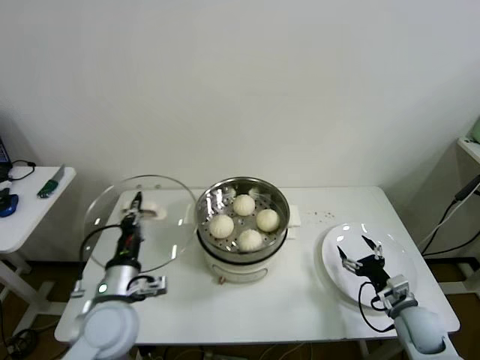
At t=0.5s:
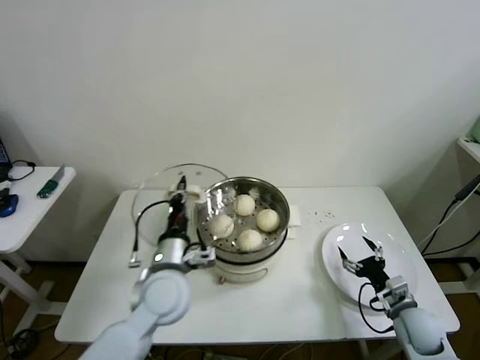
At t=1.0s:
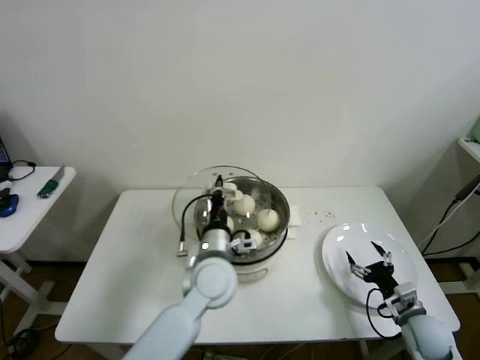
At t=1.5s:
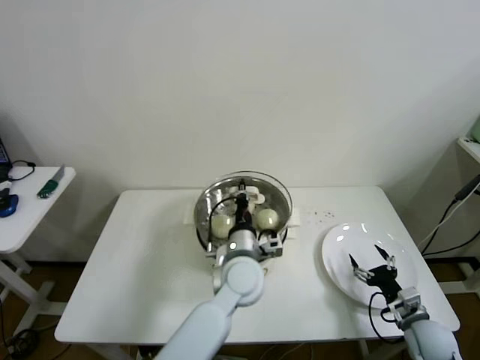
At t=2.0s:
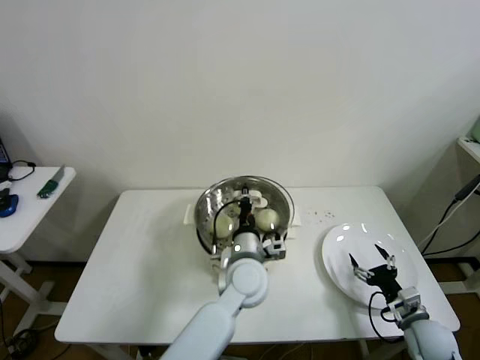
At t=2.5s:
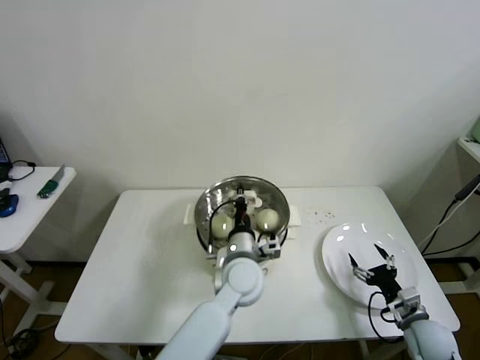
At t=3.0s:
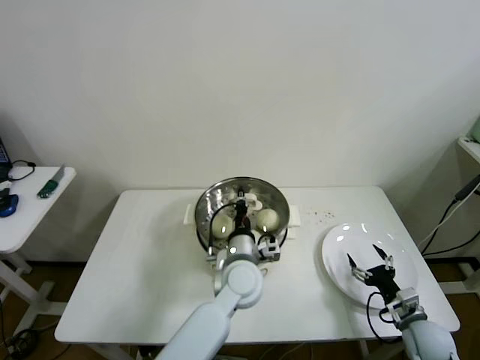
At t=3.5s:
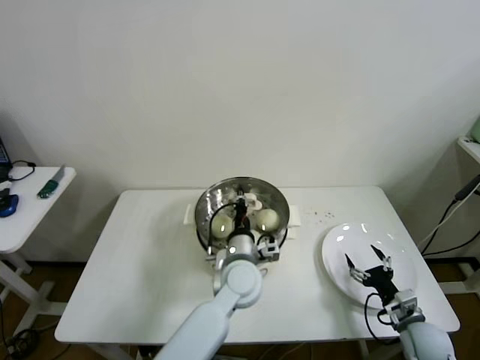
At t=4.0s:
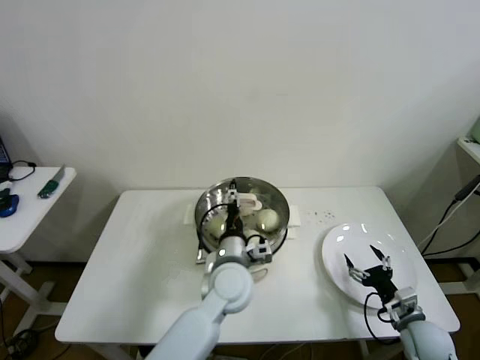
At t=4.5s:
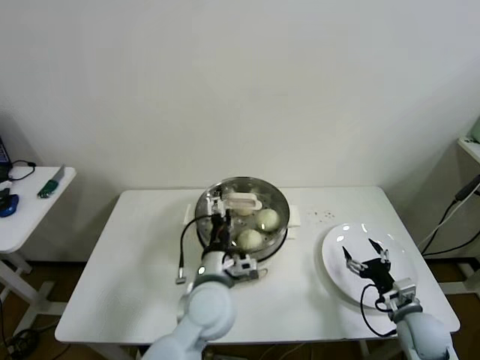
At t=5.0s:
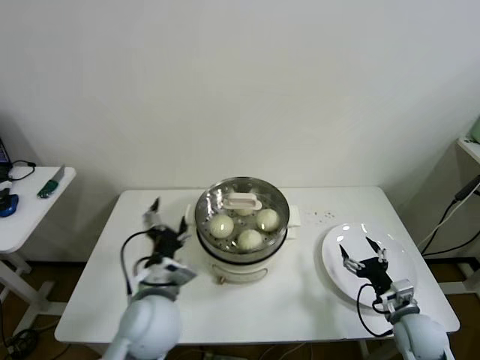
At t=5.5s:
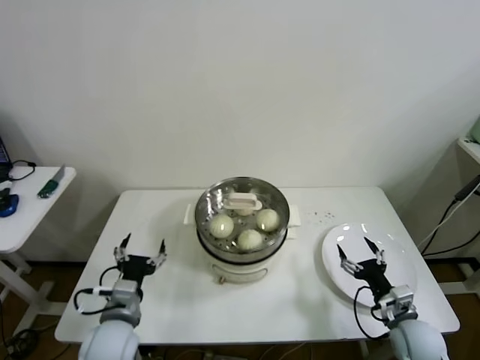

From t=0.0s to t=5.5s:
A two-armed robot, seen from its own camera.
Step, from t=0.0s to t=4.0s: Place the pot lid on the steamer with left gripper.
From t=0.0s to t=2.0s: The left gripper is displaced to the right by some 25 cm.
From t=2.0s to t=3.5s: The grippers move only a little.
From t=3.5s to t=5.5s: The left gripper travels to the left and backward by roughly 25 cm, and opens its fingers.

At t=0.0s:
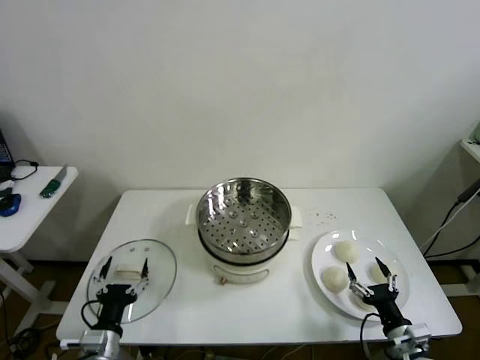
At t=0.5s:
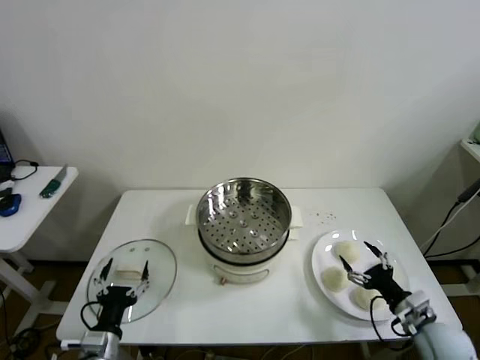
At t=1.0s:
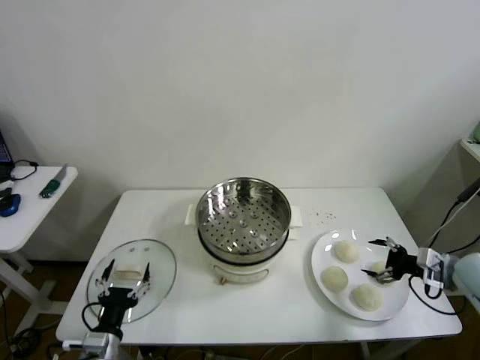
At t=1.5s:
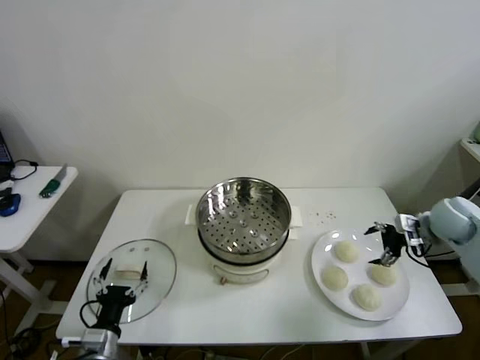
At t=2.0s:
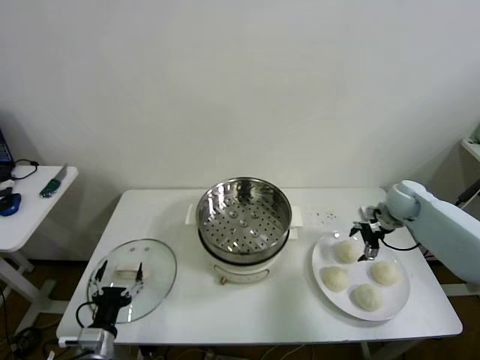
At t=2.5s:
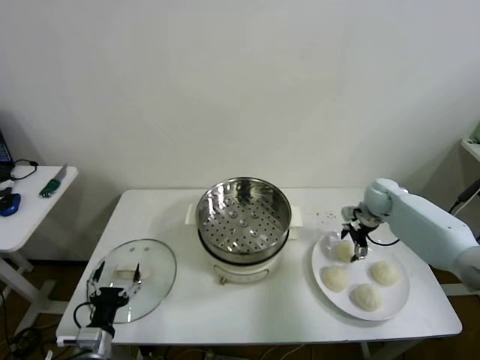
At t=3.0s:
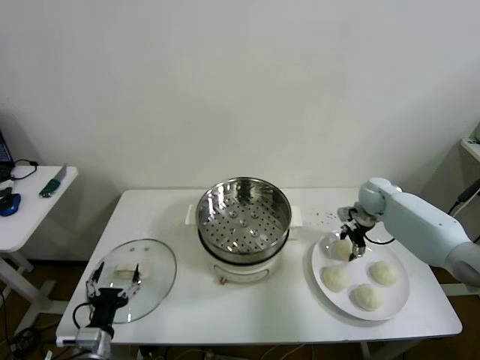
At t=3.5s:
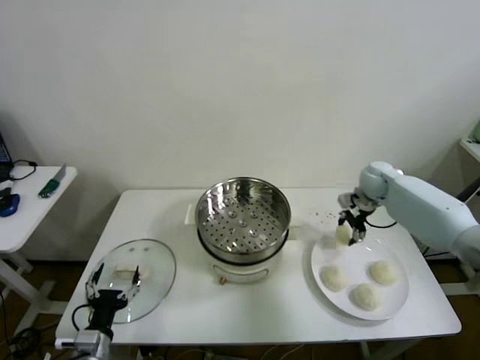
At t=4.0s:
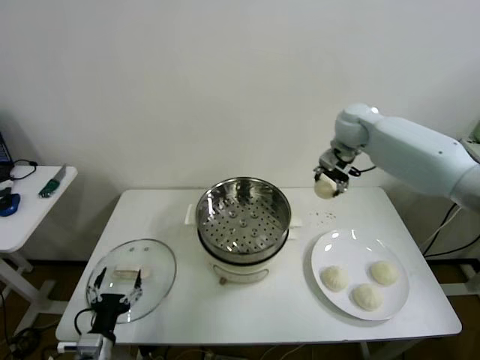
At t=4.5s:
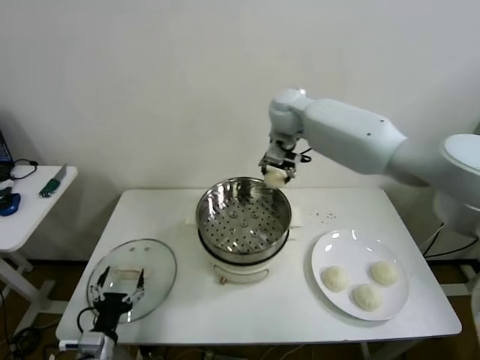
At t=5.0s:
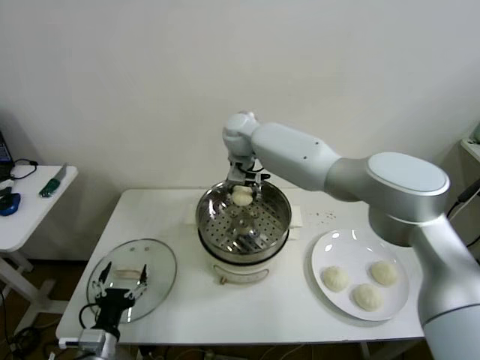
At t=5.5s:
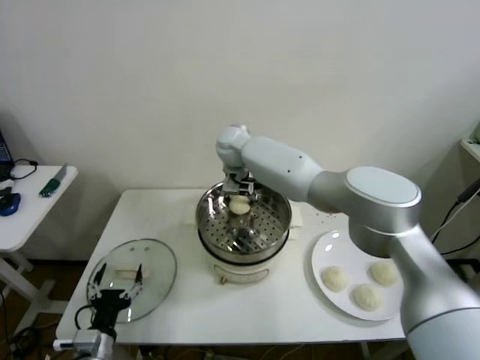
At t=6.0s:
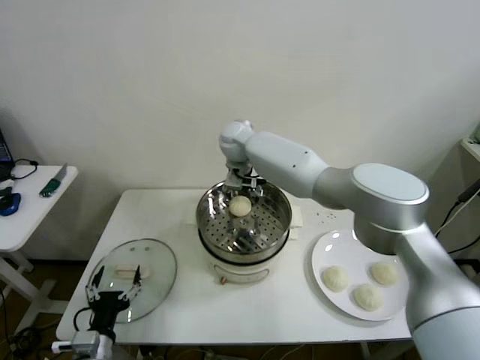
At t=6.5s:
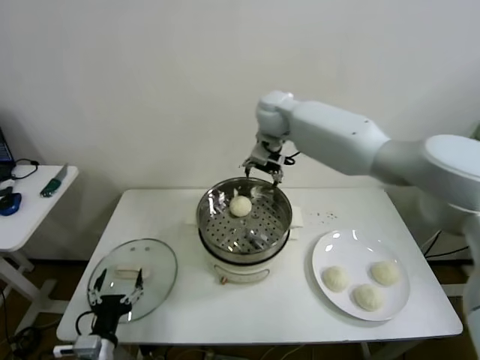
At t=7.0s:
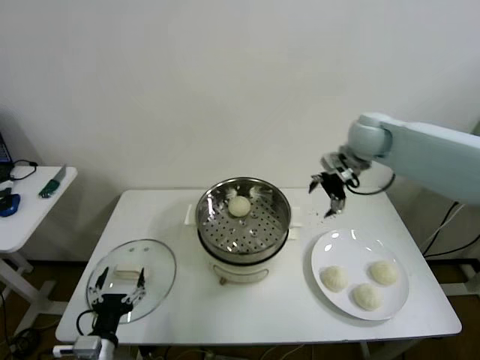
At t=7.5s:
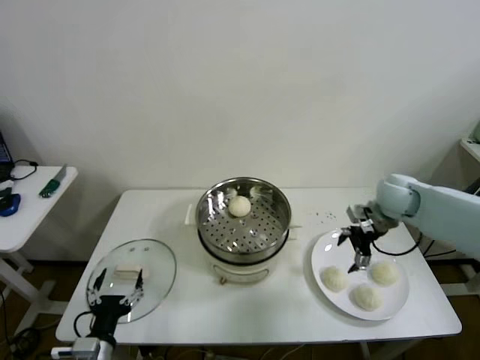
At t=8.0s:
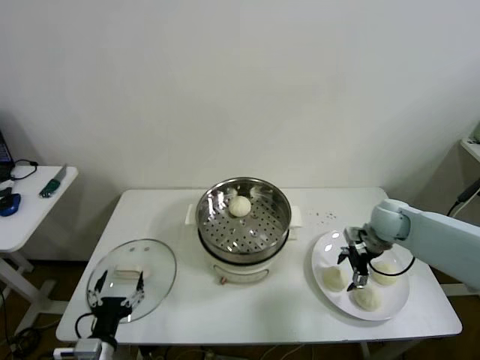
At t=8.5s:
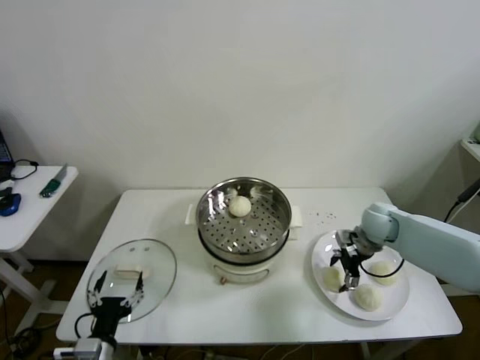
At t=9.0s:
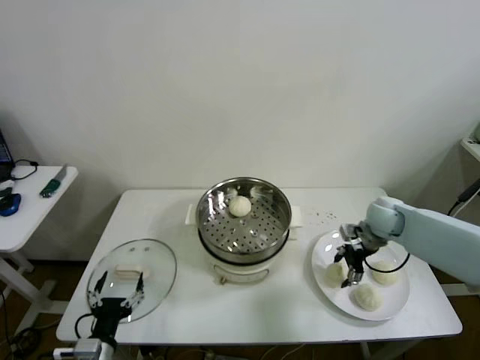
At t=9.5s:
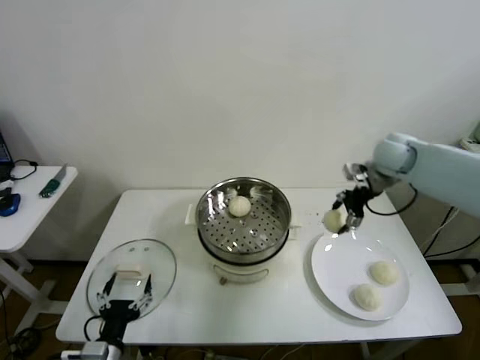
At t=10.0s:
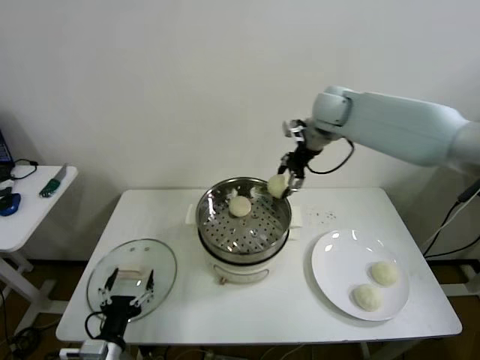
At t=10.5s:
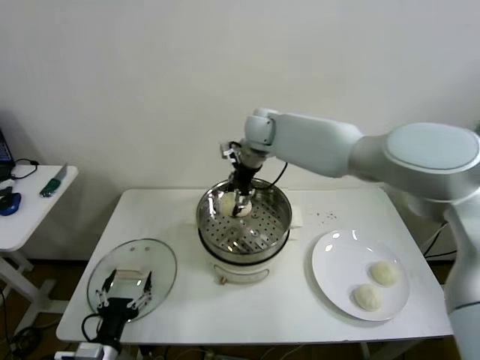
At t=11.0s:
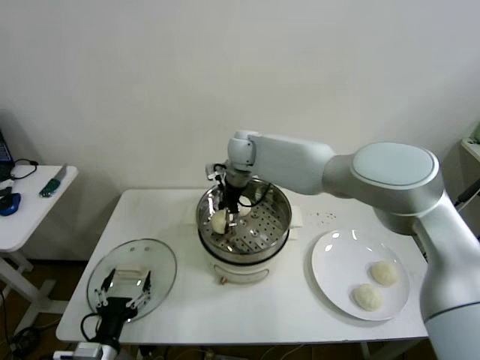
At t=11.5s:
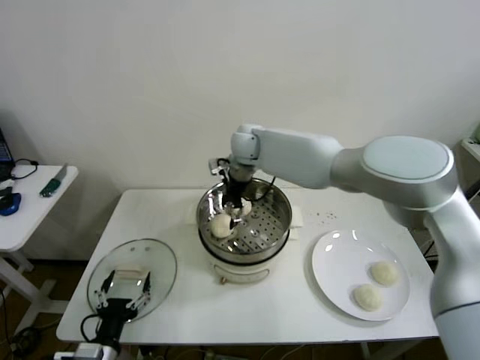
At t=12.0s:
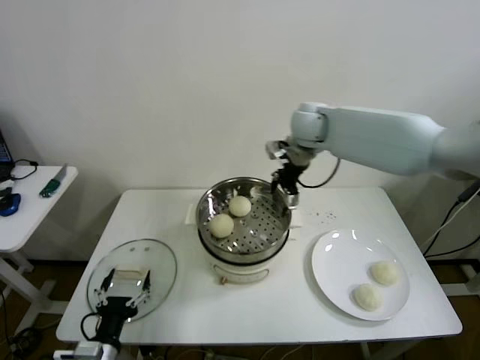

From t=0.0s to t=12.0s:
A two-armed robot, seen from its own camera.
Step, from t=0.0s to t=3.0s: Grasp the baozi in the plate with right gripper.
Step, from t=3.5s to t=5.5s: Place the baozi on the steamer with right gripper.
Step, from t=6.0s to t=8.5s: Grasp the baozi in the plate with right gripper.
Step, from t=9.0s to t=11.0s: Place the baozi on the steamer with right gripper.
From t=2.0s to t=4.0s: The right gripper goes approximately 25 cm upward, to the left and forward, and closes its fingers.
From t=4.0s to t=6.0s: The right gripper heads to the left, covering roughly 25 cm, and opens.
From t=6.0s to t=8.0s: The right gripper travels to the right by roughly 35 cm.
From t=8.0s to t=10.0s: The right gripper heads upward, to the left and forward, covering some 30 cm, and closes up.
From t=10.0s to t=12.0s: The right gripper travels to the left and back again, some 20 cm each way, and opens up.

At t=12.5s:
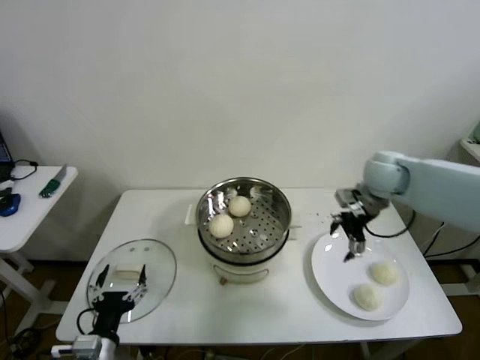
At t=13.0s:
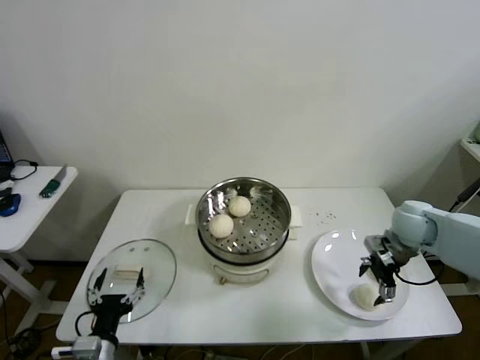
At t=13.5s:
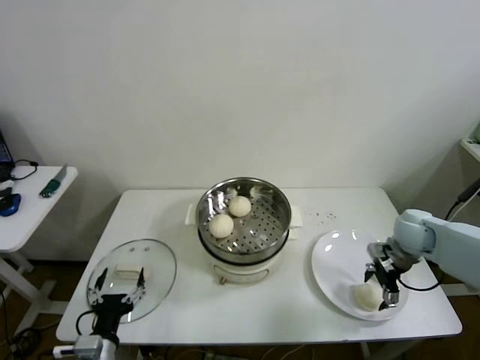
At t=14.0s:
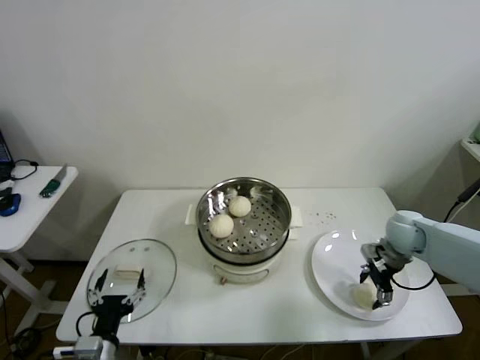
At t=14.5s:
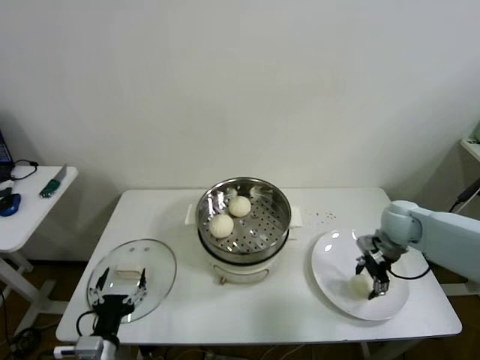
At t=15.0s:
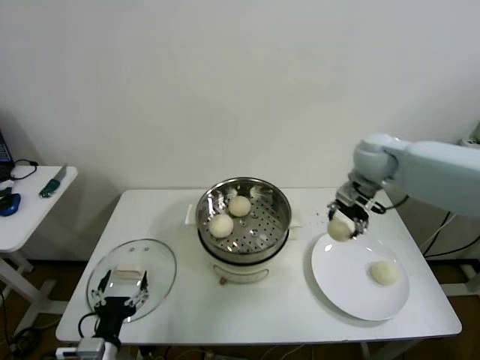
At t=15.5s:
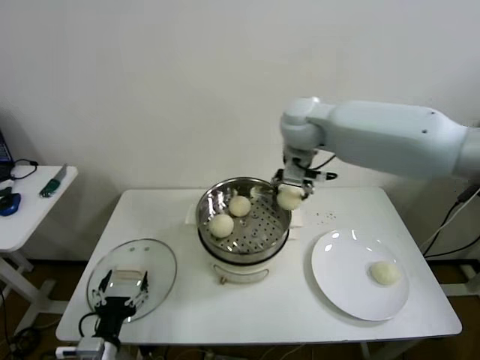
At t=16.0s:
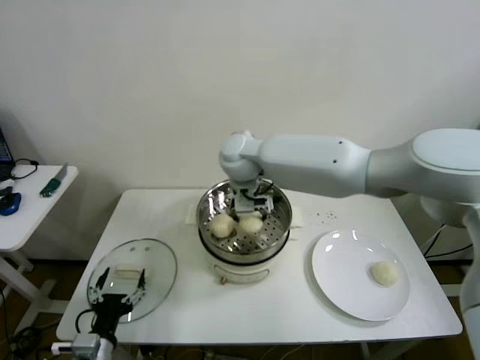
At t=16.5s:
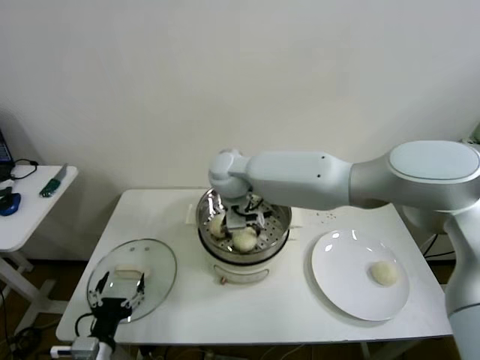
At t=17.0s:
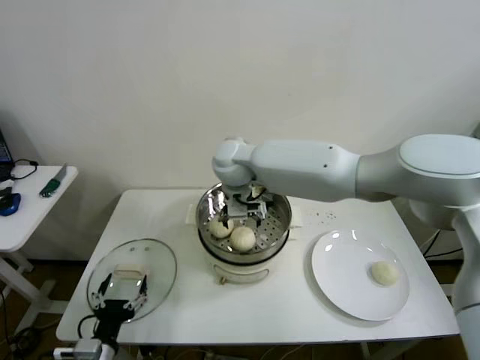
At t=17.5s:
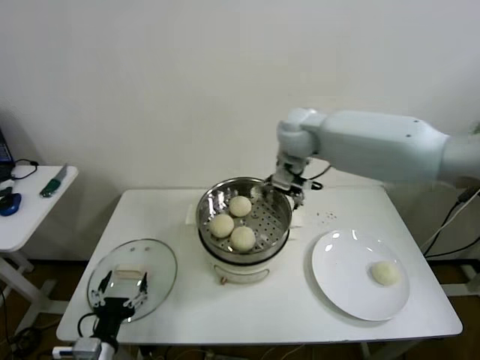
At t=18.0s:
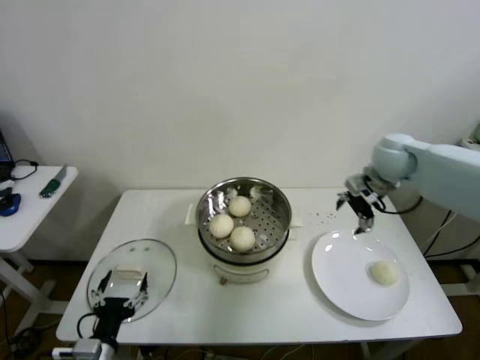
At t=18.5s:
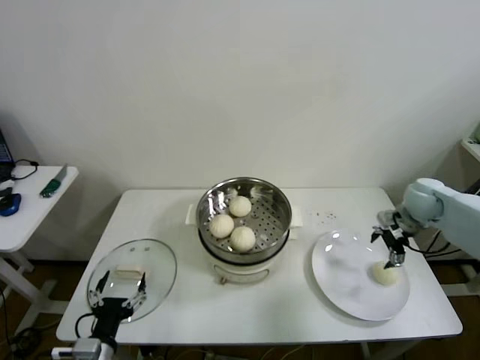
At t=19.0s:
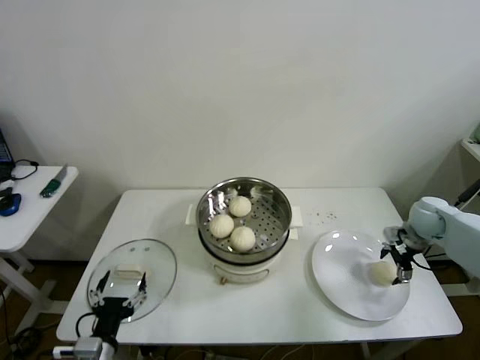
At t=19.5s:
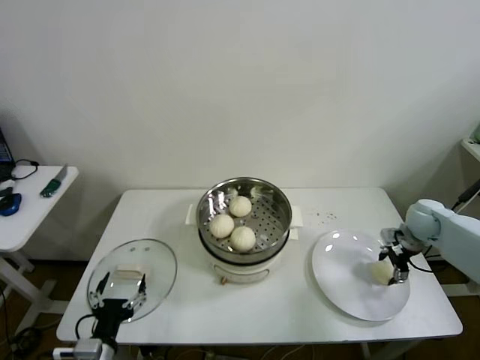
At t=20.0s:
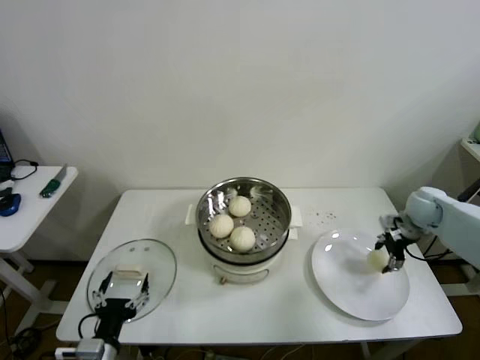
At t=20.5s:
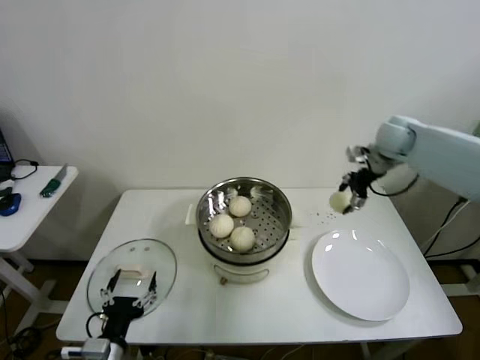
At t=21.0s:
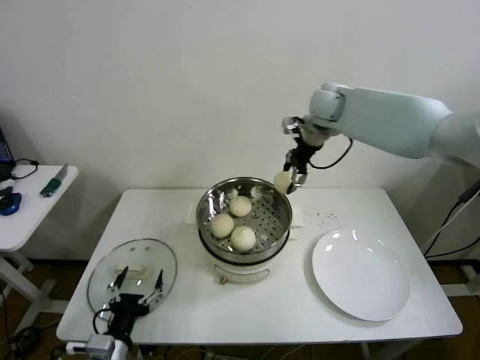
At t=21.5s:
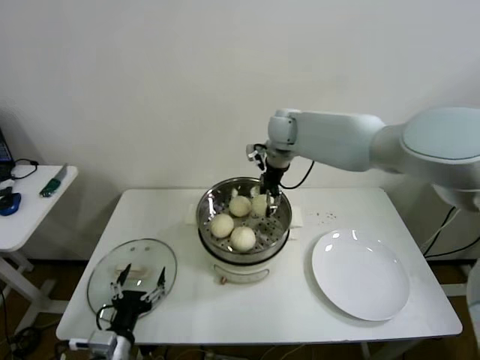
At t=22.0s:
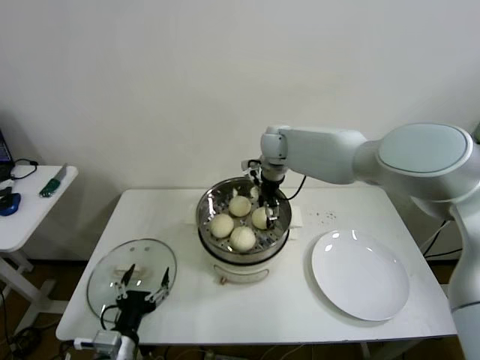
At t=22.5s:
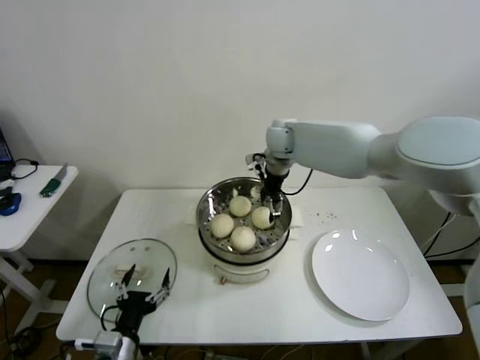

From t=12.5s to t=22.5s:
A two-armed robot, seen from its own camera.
Step, from t=12.5s to t=14.0s: Grasp the baozi in the plate with right gripper.
Step, from t=14.5s to t=16.5s: Place the baozi on the steamer with right gripper.
Step, from t=17.0s to t=19.5s: Grasp the baozi in the plate with right gripper.
Step, from t=20.0s to t=22.0s: Place the baozi on the steamer with right gripper.
From t=12.5s to t=14.5s: The right gripper goes approximately 15 cm downward and to the right, and closes up.
From t=14.5s to t=16.5s: The right gripper goes some 40 cm to the left, and opens.
From t=16.5s to t=18.5s: The right gripper heads to the right, covering about 50 cm.
From t=18.5s to t=20.5s: The right gripper moves upward, forward and to the left, about 15 cm, and closes.
From t=20.5s to t=22.5s: The right gripper goes some 25 cm to the left, and opens.
